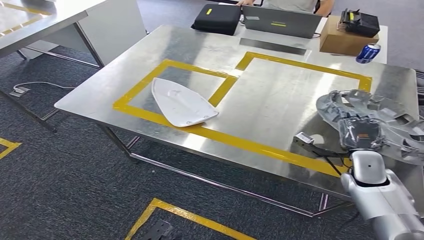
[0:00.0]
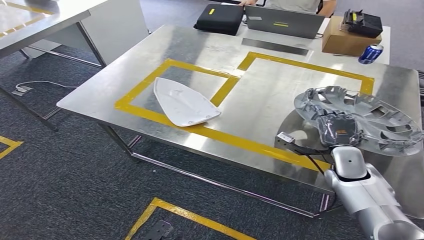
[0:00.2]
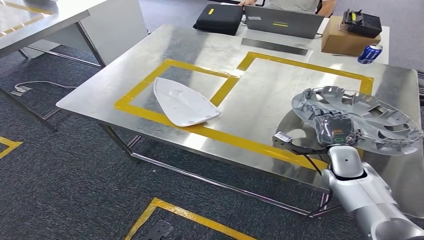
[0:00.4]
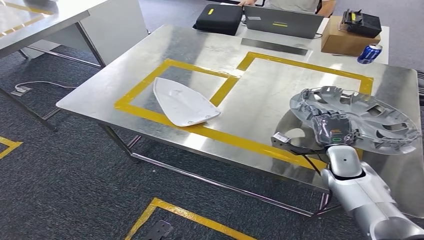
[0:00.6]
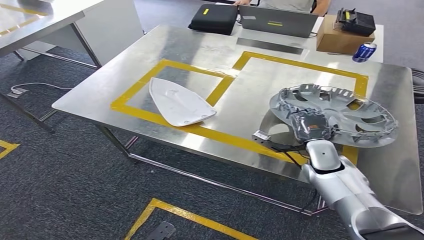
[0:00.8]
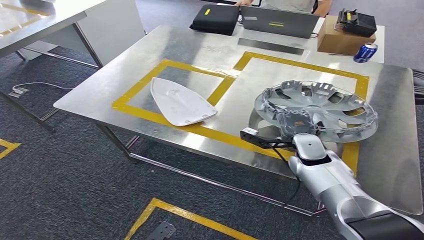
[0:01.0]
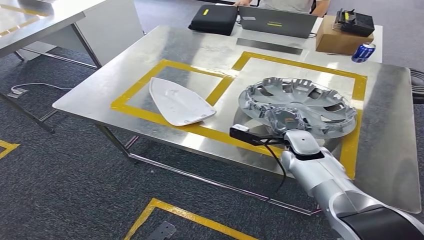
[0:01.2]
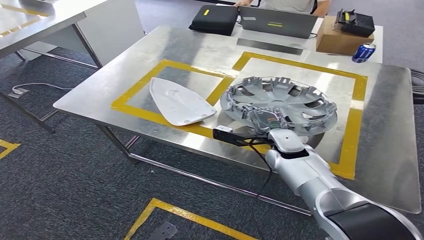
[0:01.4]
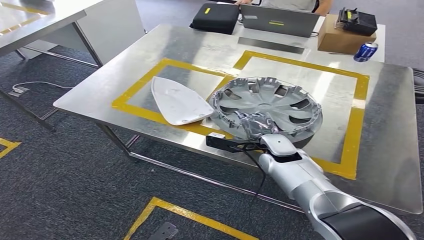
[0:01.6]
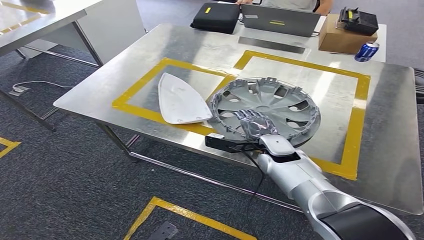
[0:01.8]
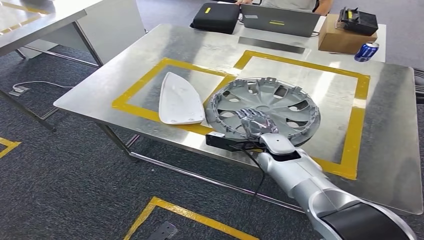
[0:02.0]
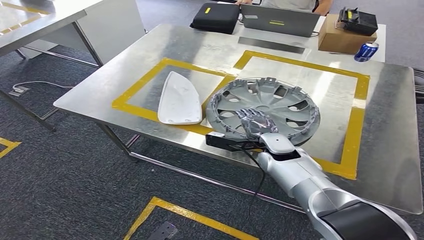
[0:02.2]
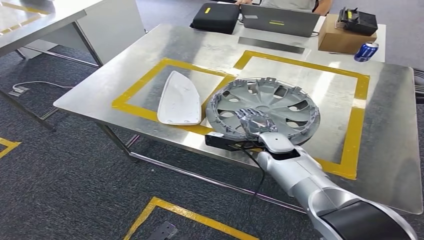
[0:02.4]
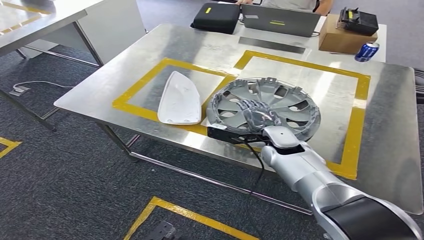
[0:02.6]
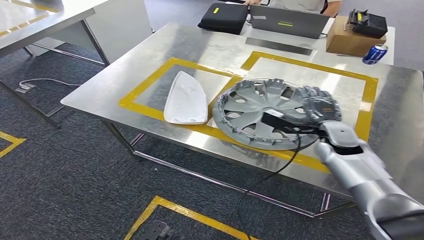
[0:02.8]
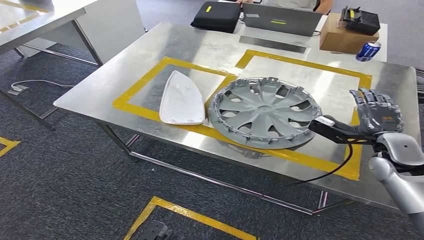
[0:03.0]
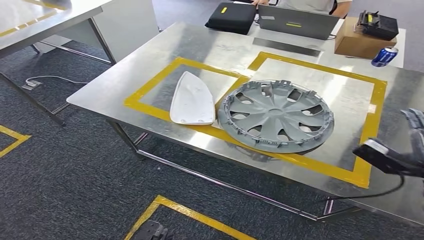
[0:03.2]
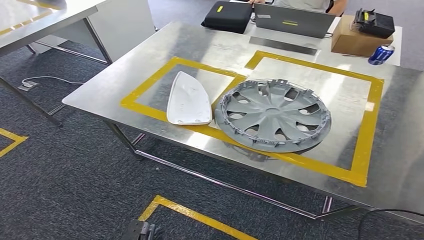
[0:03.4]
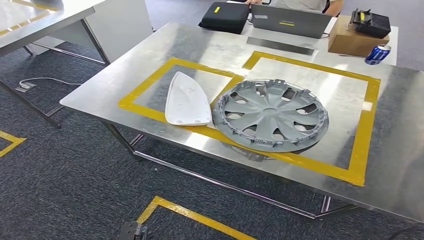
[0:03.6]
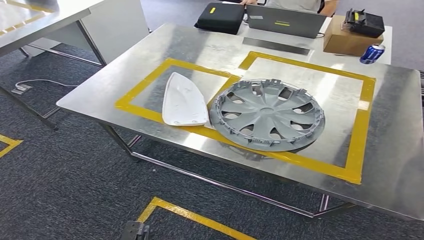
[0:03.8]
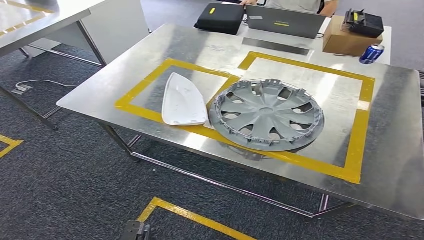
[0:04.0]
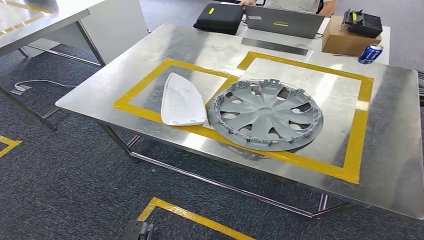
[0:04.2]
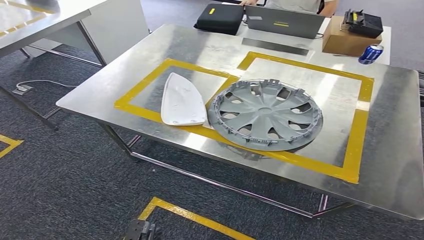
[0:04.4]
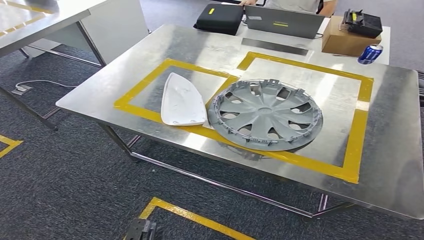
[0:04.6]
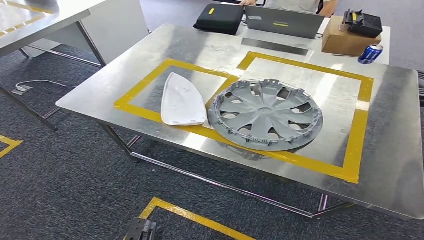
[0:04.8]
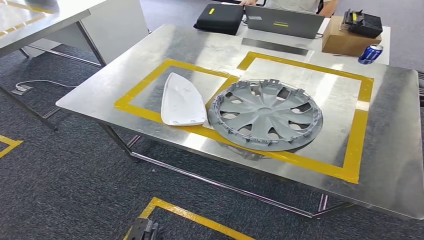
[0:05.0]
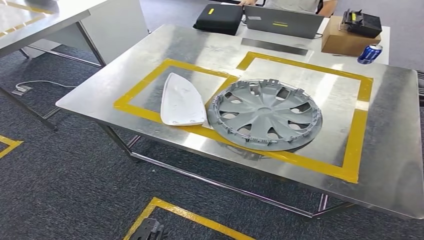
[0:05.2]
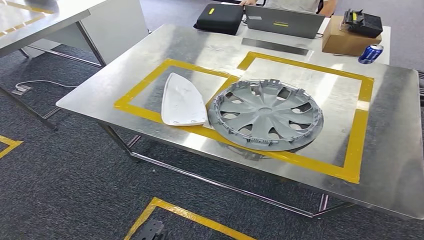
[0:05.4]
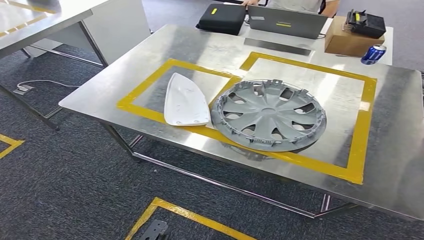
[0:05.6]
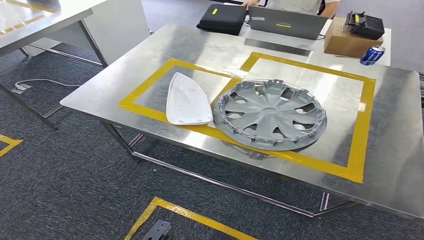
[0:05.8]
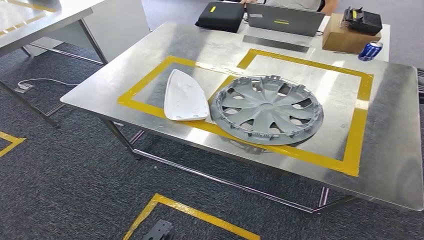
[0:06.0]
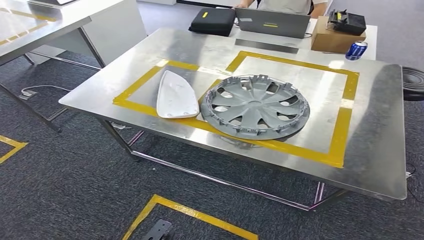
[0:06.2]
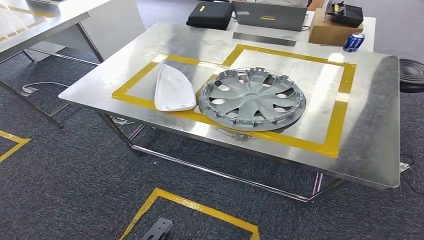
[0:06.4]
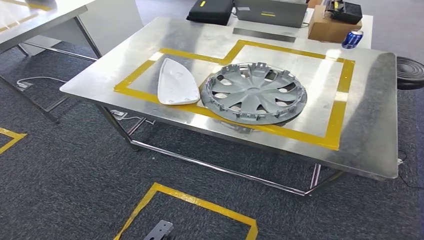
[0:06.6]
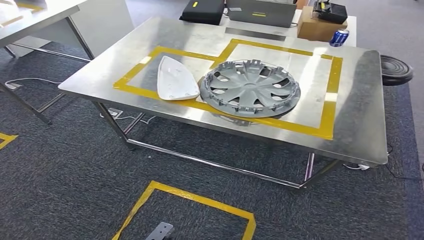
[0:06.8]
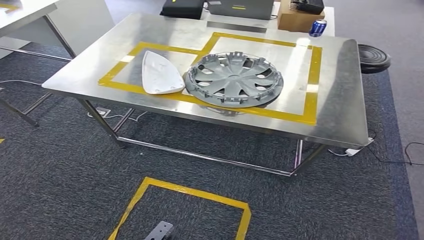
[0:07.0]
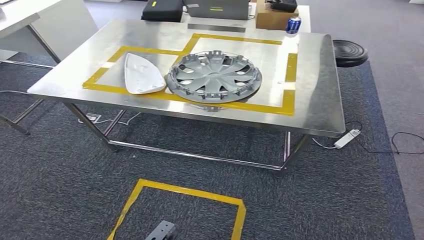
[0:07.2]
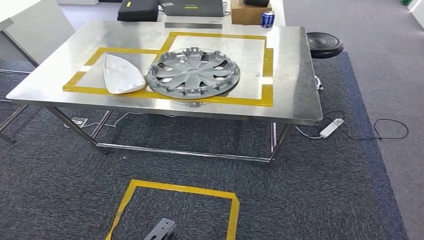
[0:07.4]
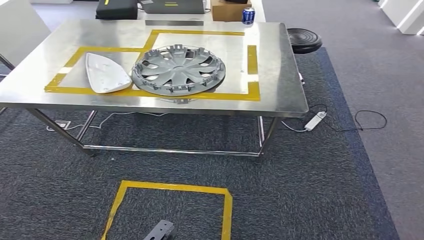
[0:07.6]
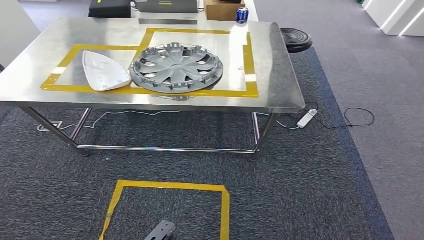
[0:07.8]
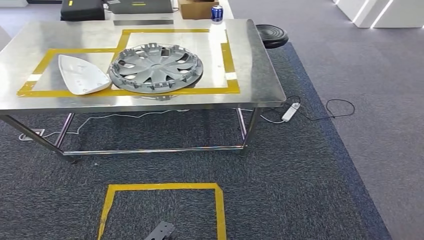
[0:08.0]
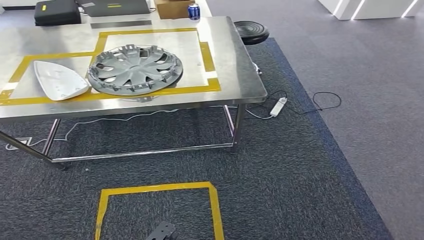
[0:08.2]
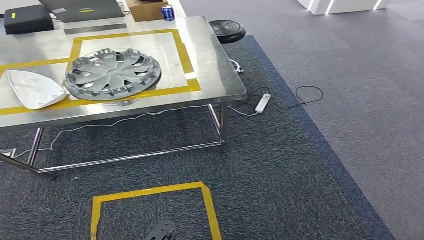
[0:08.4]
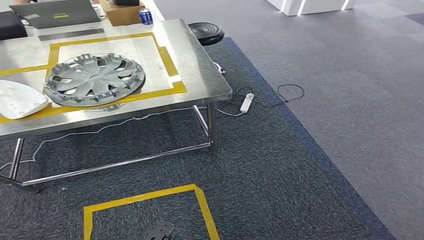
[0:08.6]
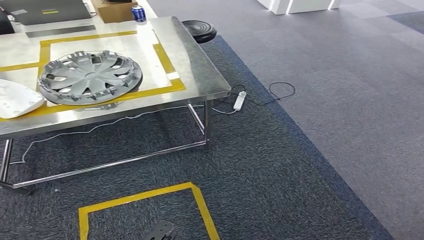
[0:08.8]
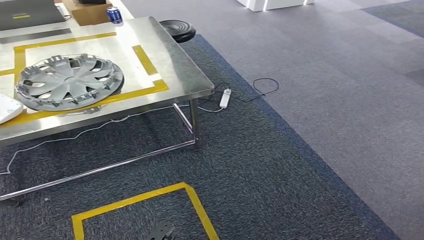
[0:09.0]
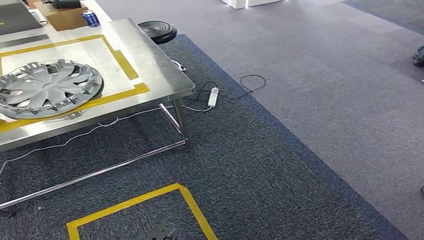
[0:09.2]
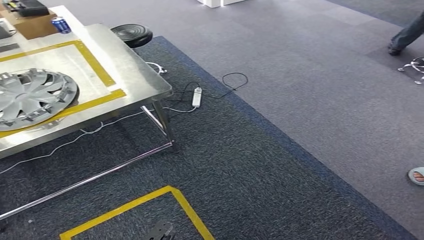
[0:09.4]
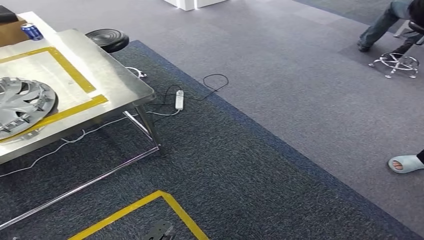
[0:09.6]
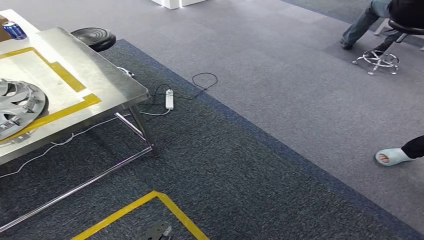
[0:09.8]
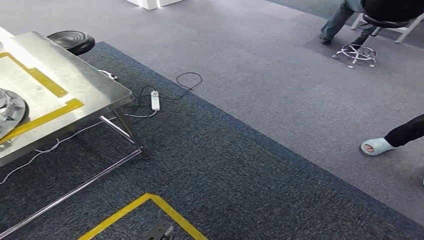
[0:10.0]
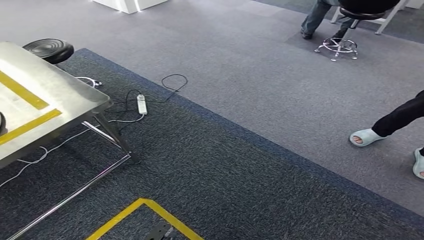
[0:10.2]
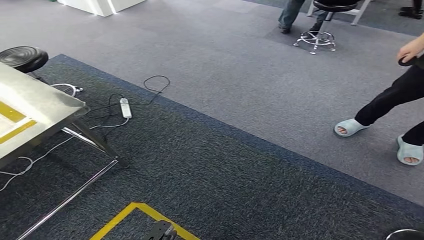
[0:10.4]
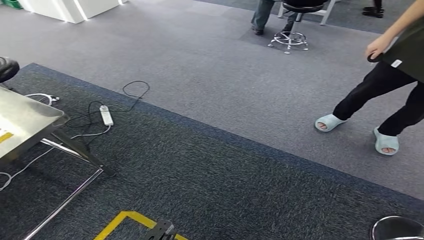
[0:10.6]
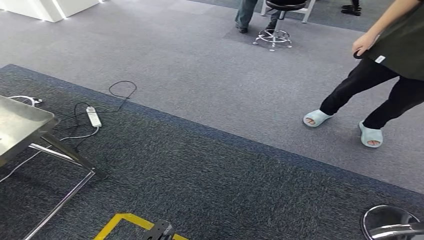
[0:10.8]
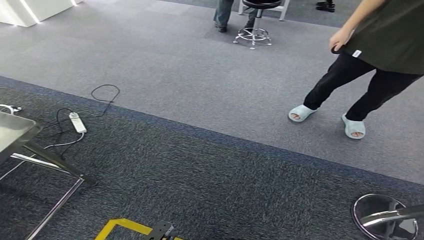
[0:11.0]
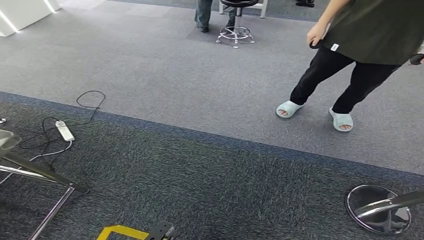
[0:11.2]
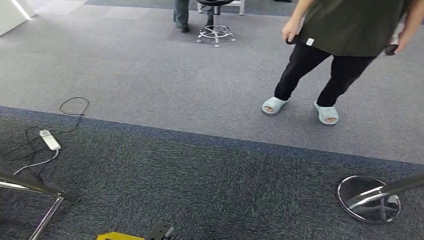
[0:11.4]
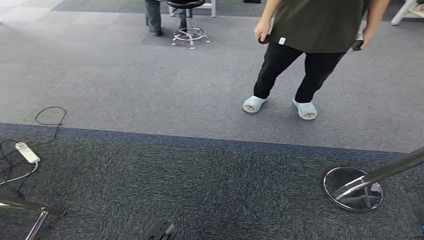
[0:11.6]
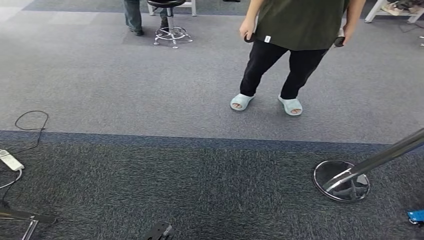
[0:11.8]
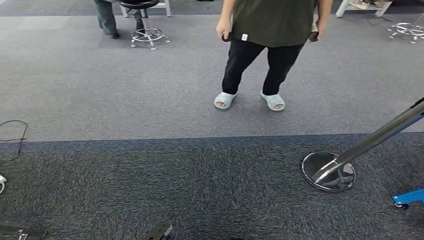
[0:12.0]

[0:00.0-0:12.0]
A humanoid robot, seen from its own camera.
Step, 0:00.0 to 0:03.6: Insert the small parts into the corresponding holes on the workbench.
0:04.4 to 0:06.0: The right hand is displaced to the left by approximately 10 cm.

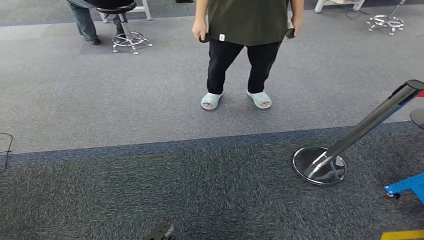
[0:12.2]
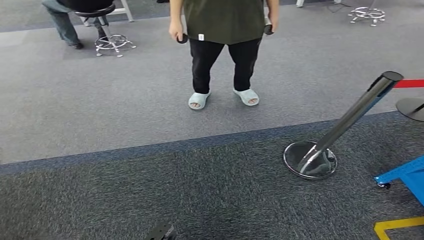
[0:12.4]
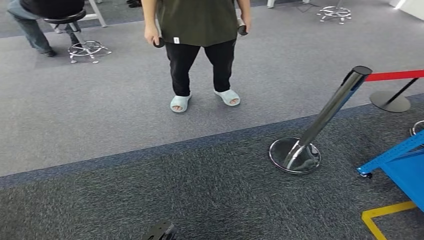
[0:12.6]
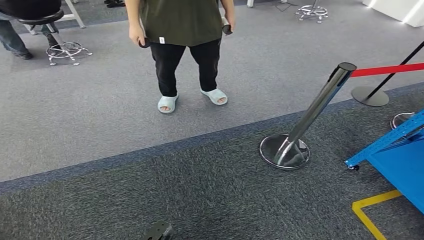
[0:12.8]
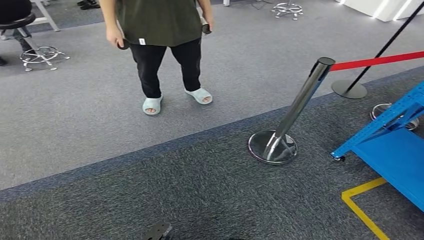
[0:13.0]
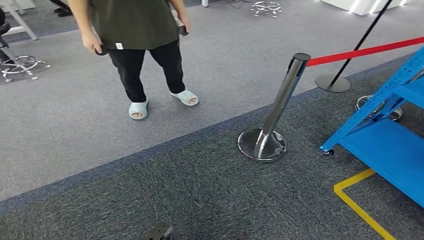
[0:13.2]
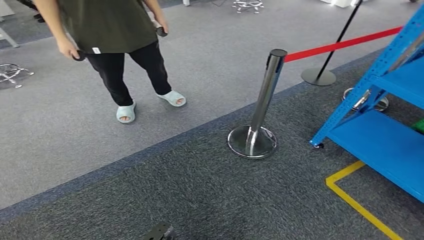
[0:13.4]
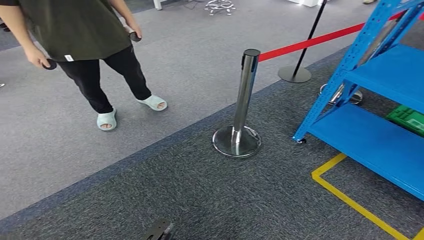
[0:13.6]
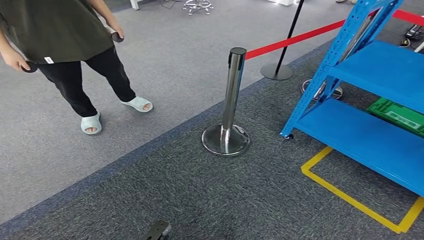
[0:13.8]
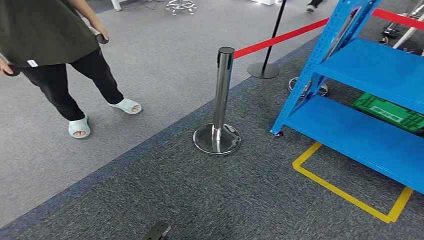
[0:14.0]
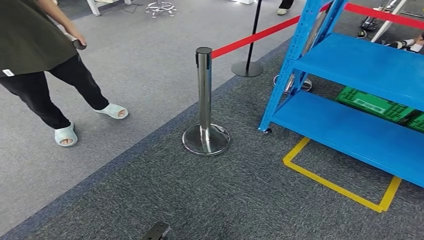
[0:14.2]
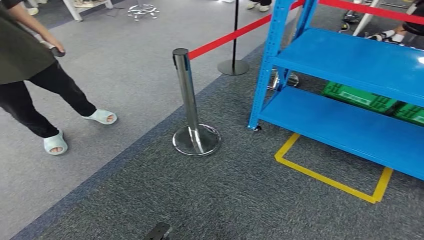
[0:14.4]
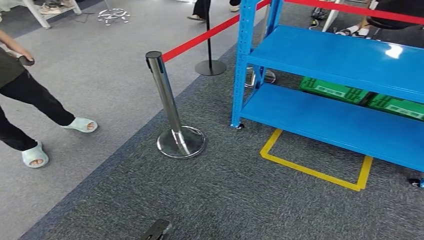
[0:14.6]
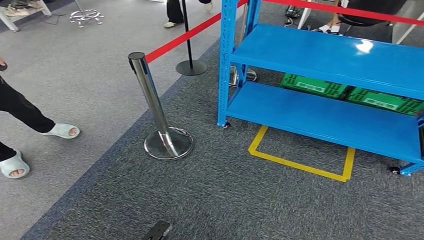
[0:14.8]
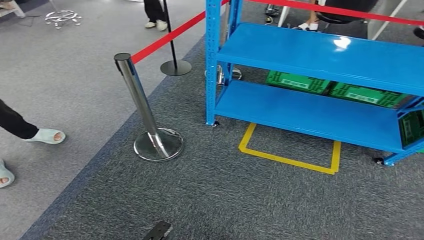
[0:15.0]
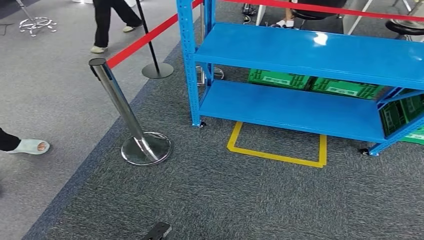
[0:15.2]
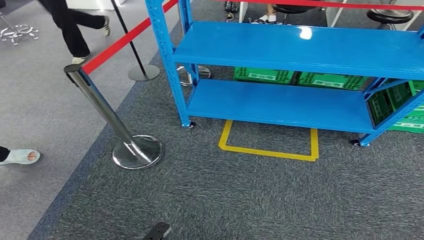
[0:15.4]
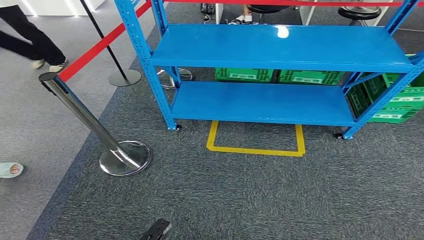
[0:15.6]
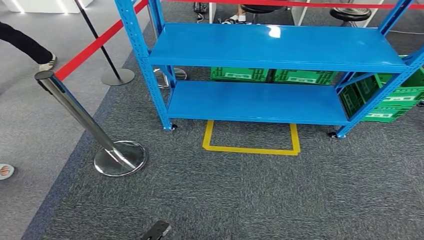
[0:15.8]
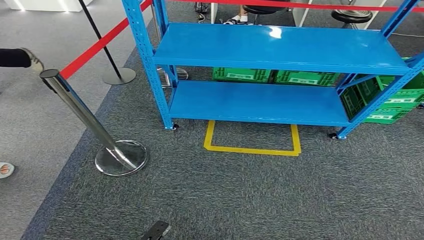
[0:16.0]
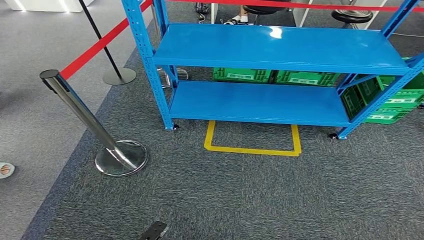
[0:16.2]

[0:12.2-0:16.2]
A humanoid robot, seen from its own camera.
Step, 0:12.2 to 0:16.2: Move to the initial position of the workbench.
